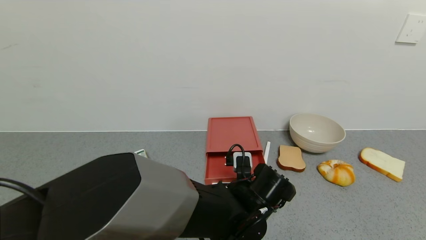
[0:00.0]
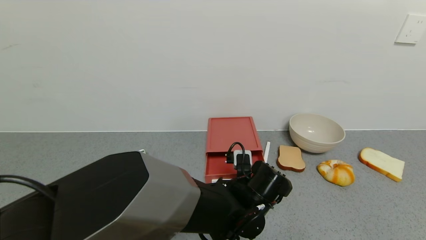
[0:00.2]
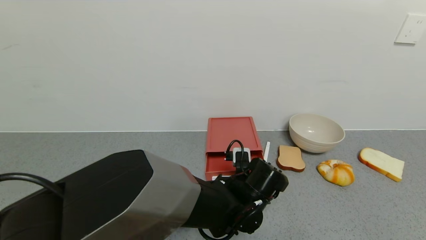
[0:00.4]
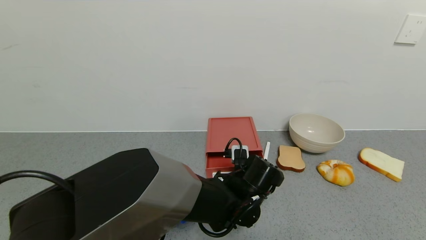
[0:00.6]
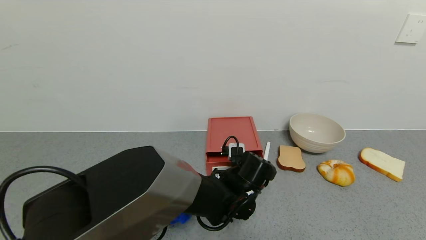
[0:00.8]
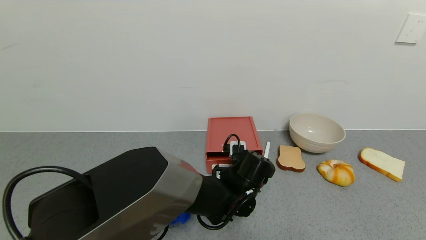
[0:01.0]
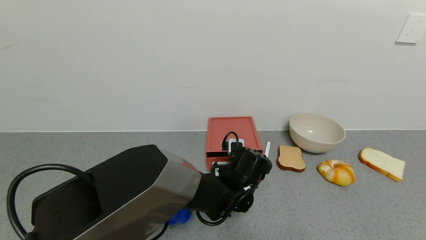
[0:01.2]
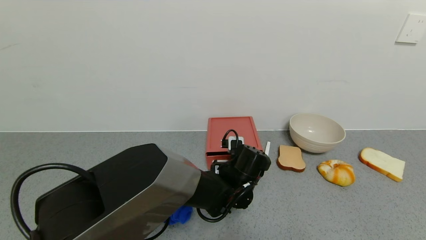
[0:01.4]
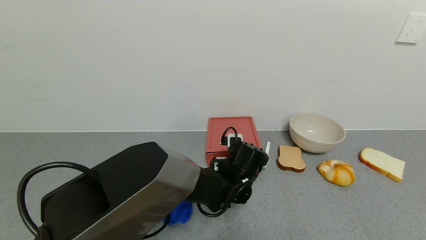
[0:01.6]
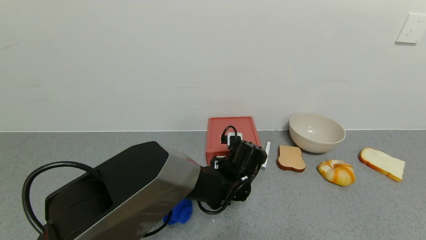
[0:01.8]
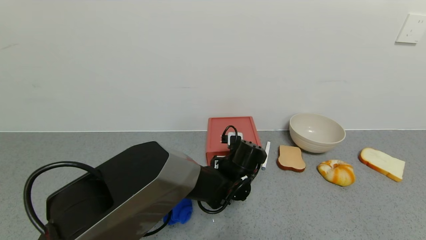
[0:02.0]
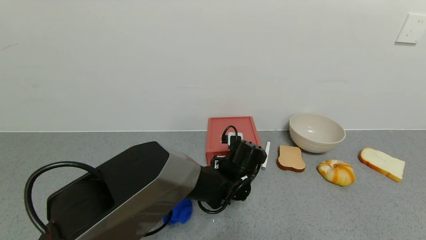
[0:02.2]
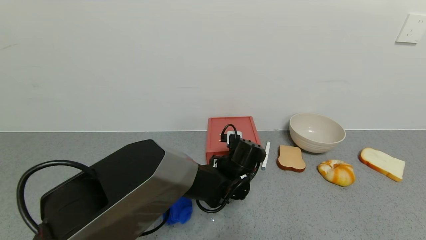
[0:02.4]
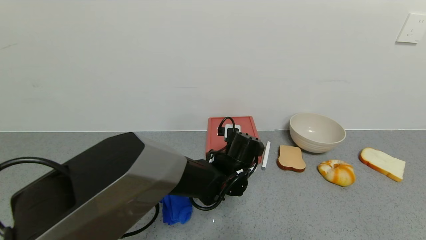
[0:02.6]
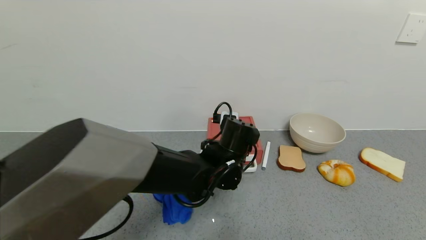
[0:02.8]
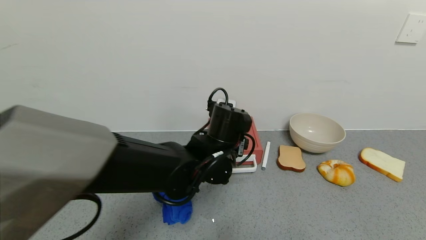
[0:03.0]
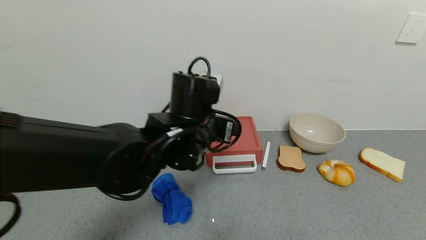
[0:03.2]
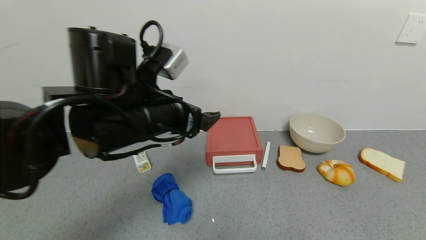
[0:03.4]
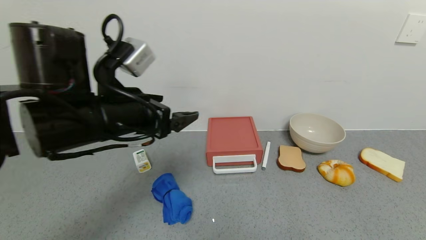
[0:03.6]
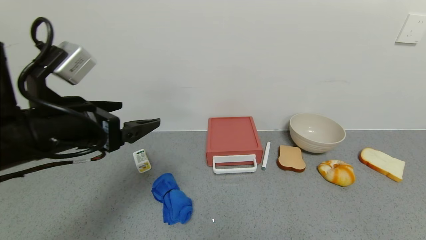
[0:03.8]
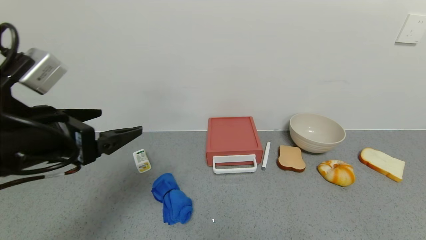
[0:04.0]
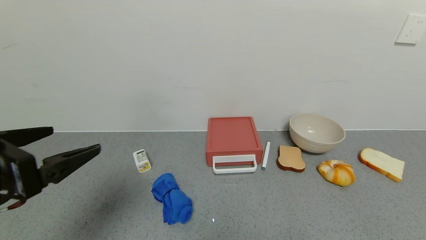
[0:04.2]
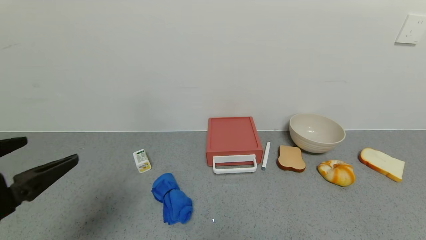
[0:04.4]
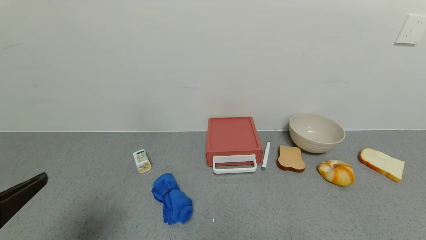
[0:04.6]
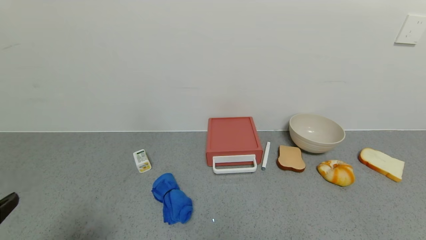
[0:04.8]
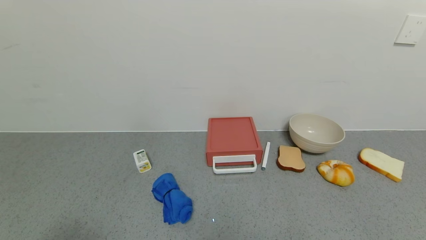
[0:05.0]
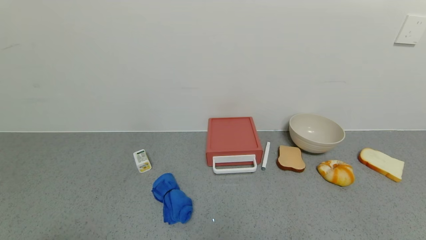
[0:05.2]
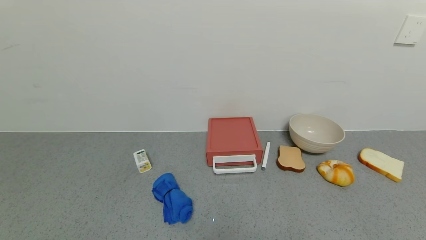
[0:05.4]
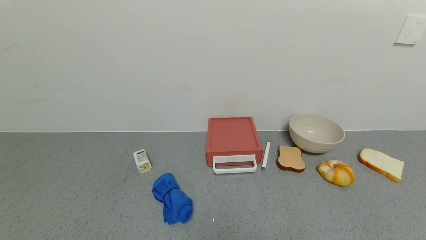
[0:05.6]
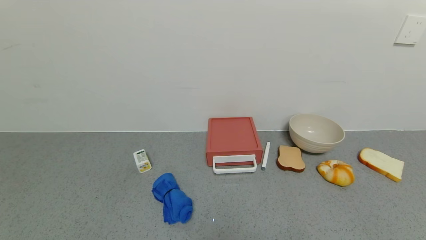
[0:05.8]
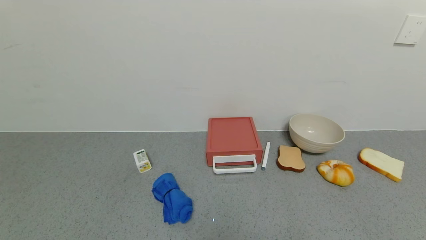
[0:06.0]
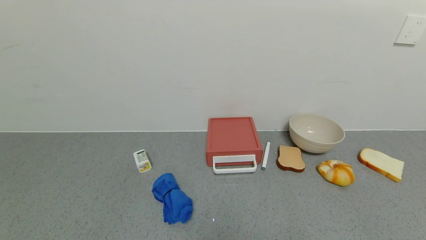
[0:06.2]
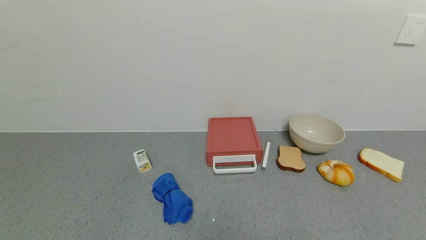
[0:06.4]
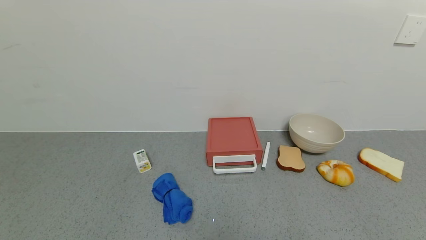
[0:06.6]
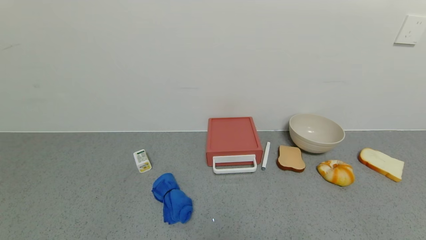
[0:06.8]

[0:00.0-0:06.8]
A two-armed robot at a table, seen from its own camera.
Task of the whole recording: use the gripper to open the drawer and close the red drawer.
Step, 0:00.0 to 0:03.0: Close the red drawer with the left gripper.
0:00.0 to 0:01.4: The left gripper travels forward by some 5 cm.
0:01.4 to 0:02.8: The left gripper heads upward, covering roughly 5 cm.
0:02.8 to 0:04.0: The left gripper is displaced to the left, backward and upward by roughly 30 cm.
0:04.0 to 0:05.4: The left gripper moves backward, approximately 20 cm.

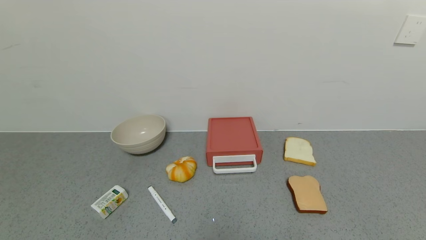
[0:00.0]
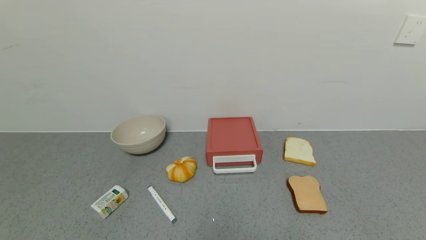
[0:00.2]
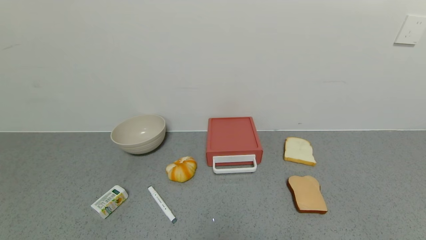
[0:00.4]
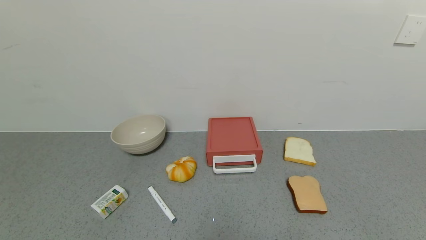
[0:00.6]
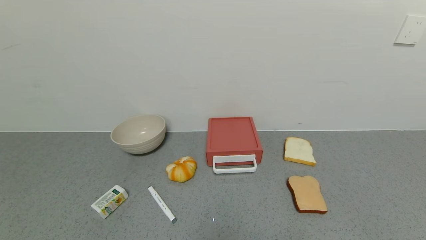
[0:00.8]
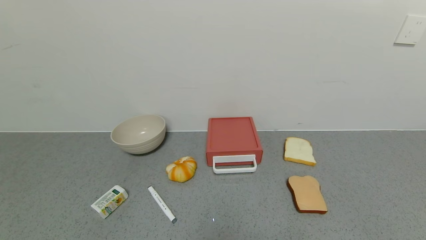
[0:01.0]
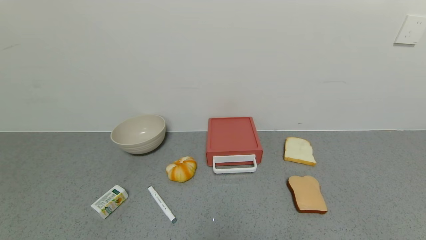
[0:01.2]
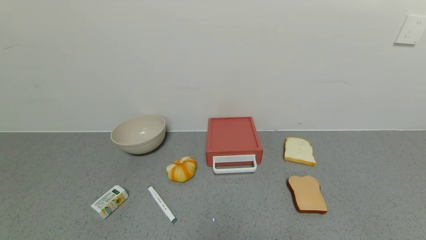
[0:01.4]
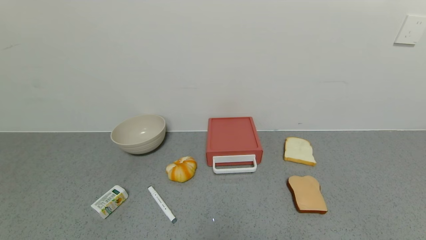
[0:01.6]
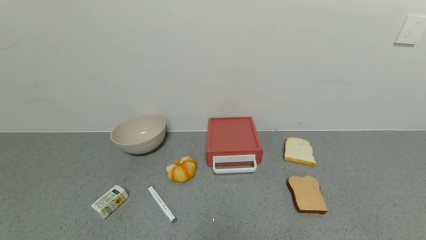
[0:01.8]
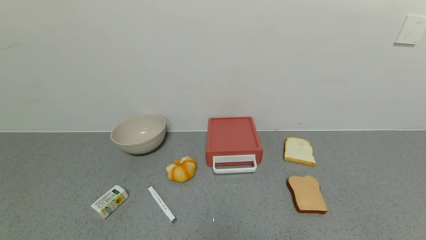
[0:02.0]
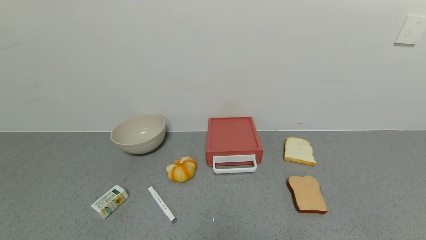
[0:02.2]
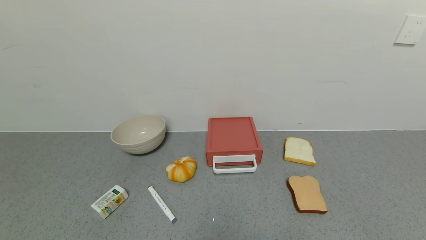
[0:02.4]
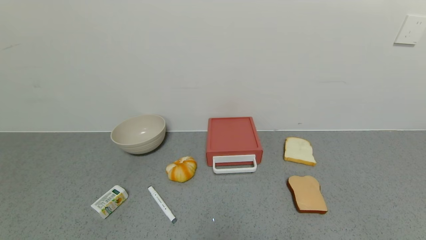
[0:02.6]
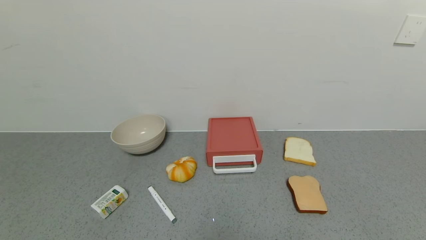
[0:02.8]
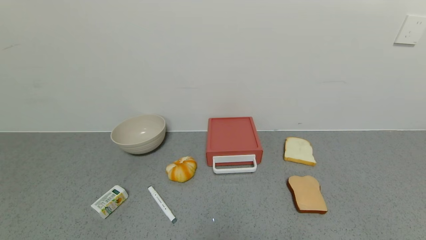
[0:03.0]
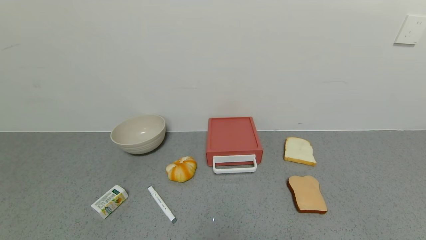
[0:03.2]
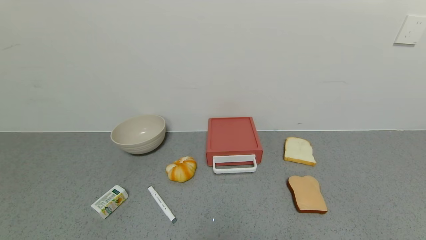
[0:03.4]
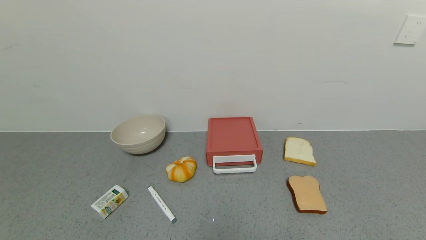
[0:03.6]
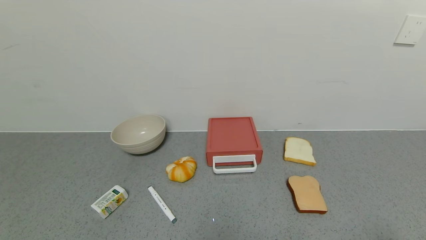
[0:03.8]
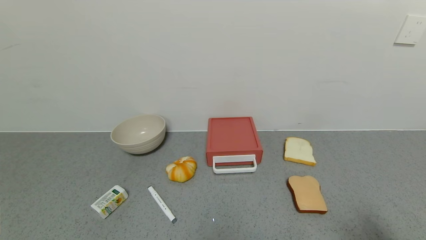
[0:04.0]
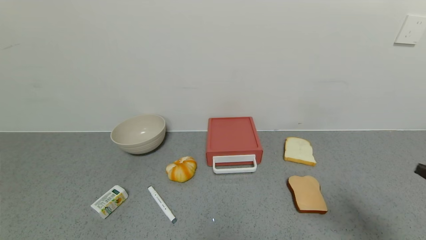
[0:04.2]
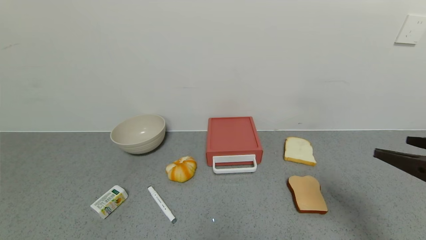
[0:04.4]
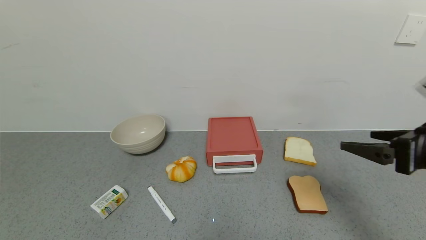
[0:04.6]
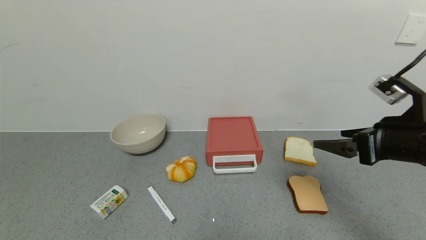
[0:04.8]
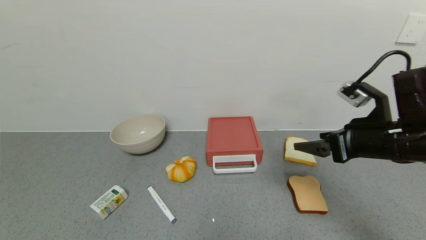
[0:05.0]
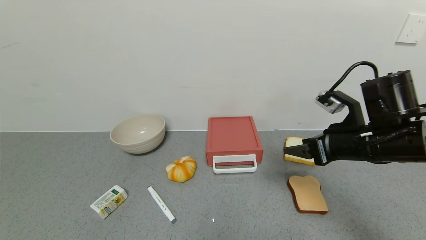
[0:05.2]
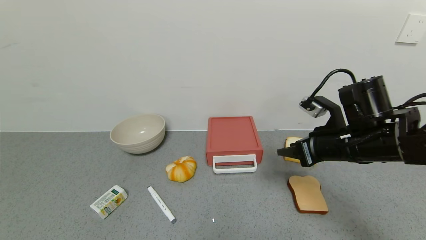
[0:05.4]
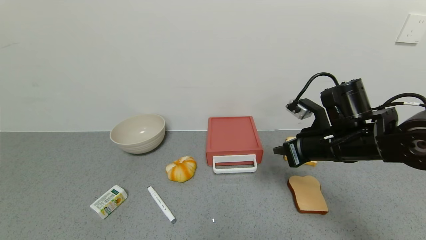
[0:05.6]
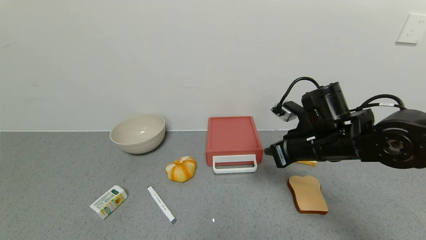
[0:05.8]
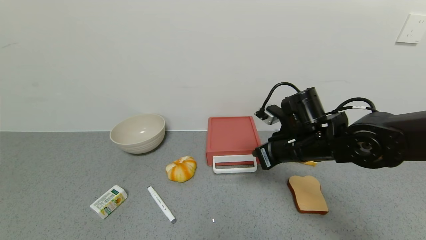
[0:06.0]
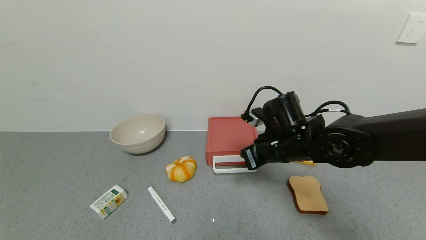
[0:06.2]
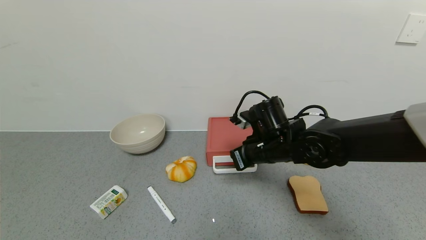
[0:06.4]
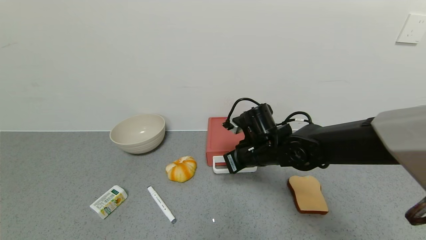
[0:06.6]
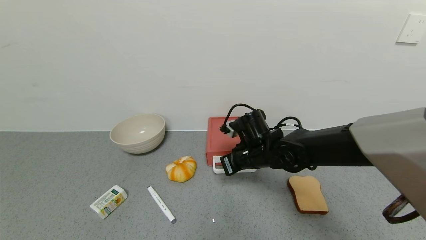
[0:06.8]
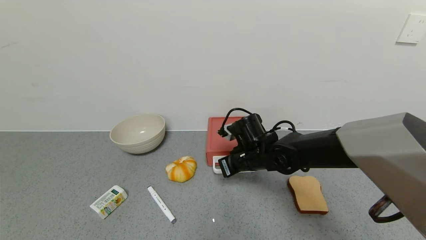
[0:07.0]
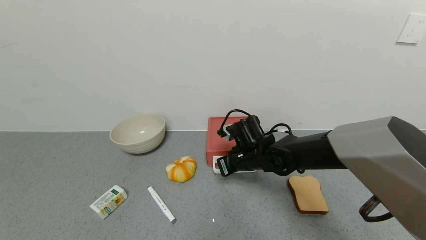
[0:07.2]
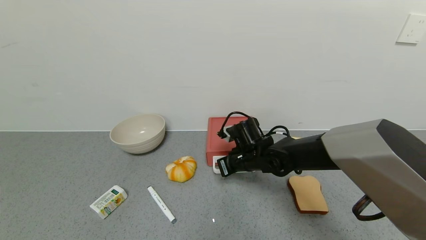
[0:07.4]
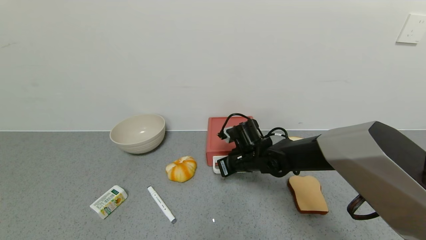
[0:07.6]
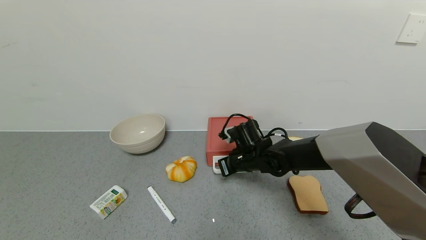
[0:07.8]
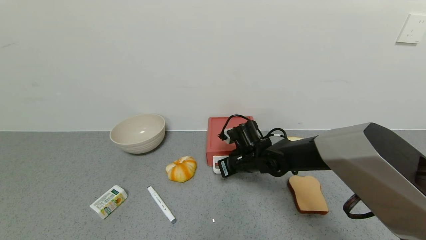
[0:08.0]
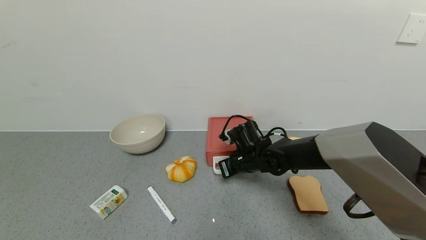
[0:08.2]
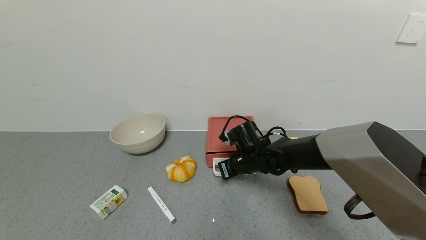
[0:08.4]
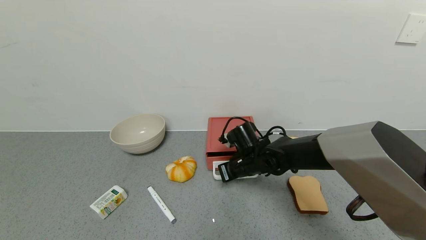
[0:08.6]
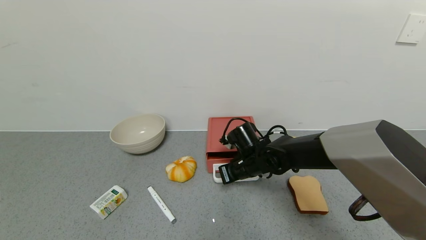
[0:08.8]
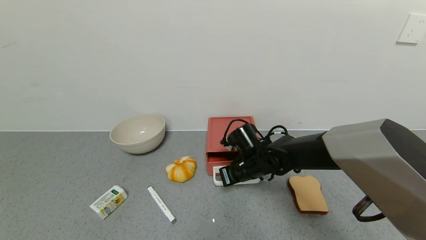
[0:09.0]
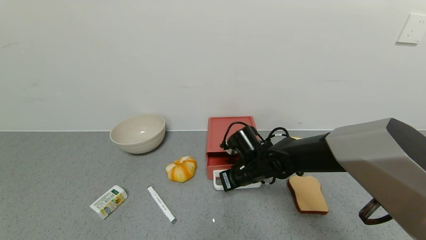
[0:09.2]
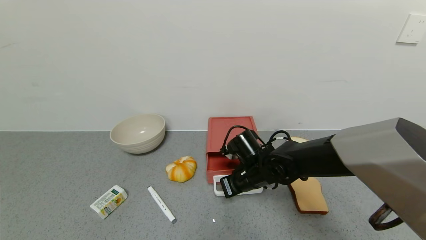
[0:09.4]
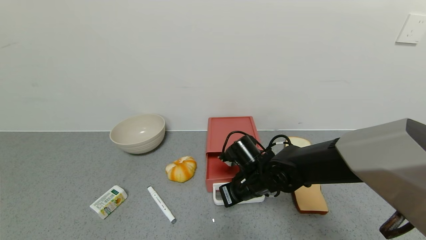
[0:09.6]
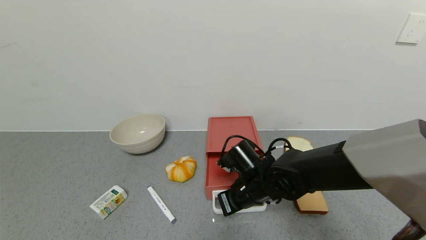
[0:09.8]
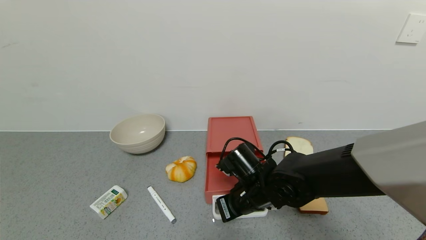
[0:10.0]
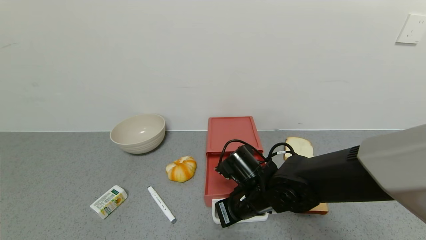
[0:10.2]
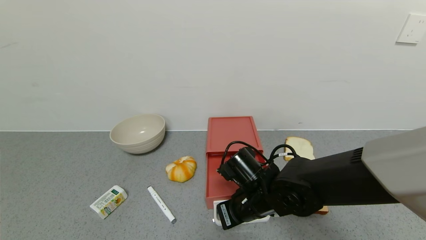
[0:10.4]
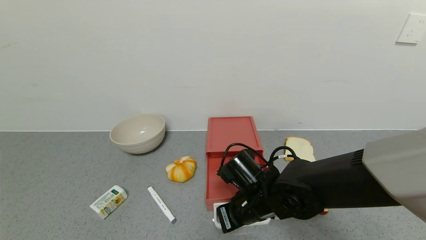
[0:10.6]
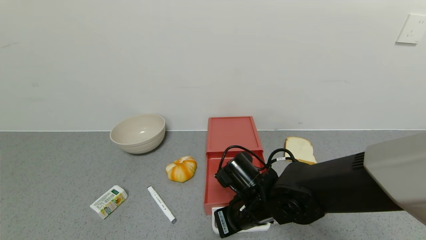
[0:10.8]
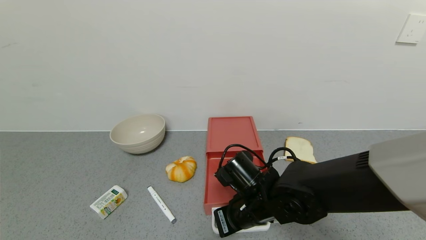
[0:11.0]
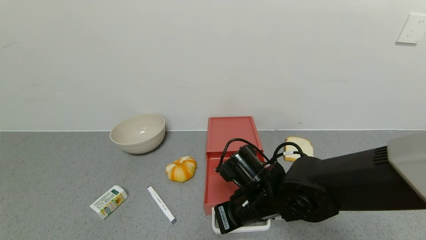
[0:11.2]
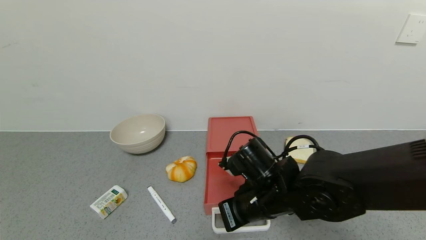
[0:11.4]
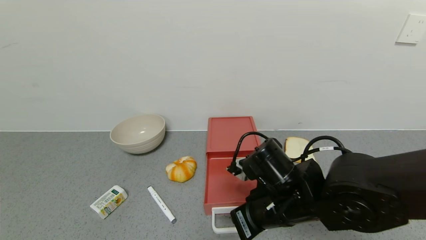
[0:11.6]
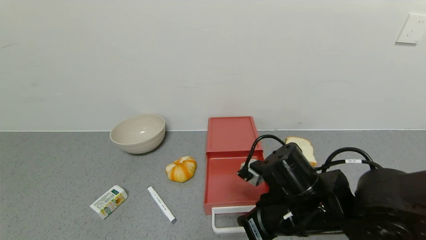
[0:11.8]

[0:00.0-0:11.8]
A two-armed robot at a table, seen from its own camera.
Task of the whole recording: use the gripper to open the drawer and close the red drawer.
Step, 0:00.0 to 0:11.6: Open the red drawer with right gripper.
0:00.0 to 0:03.0: Both grippers stay about where they are.
0:03.0 to 0:04.4: The right gripper is displaced upward and forward by about 25 cm.
0:04.4 to 0:06.0: The right gripper heads to the left, forward and downward, covering some 25 cm, and closes its fingers.
0:06.0 to 0:07.4: The right gripper shifts approximately 15 cm downward, to the left and forward.
0:07.4 to 0:08.8: There are only small adjustments of the grippers.
0:08.8 to 0:10.4: The right gripper shifts about 10 cm backward.
0:10.4 to 0:11.8: The right gripper heads backward and to the right, covering some 10 cm.
